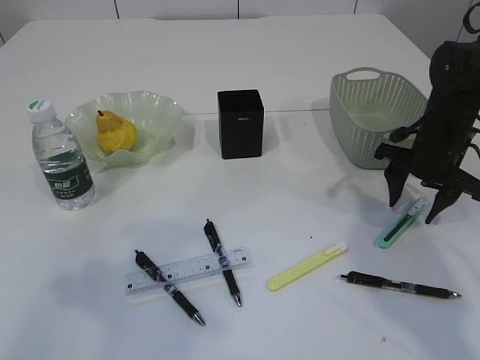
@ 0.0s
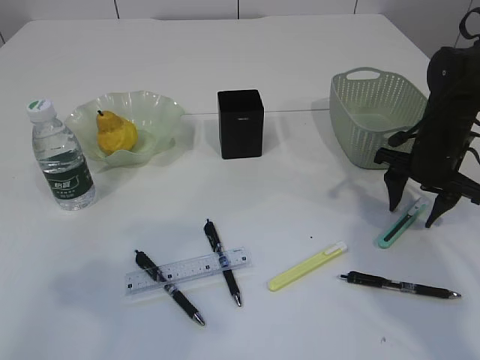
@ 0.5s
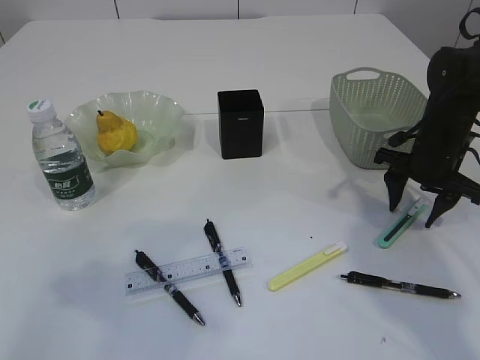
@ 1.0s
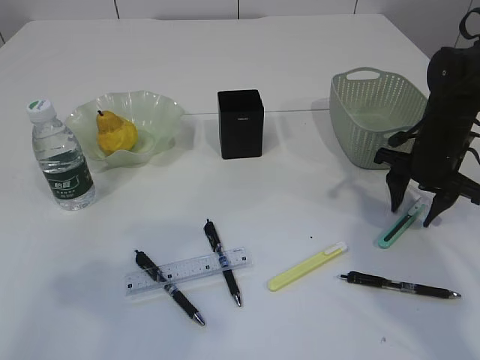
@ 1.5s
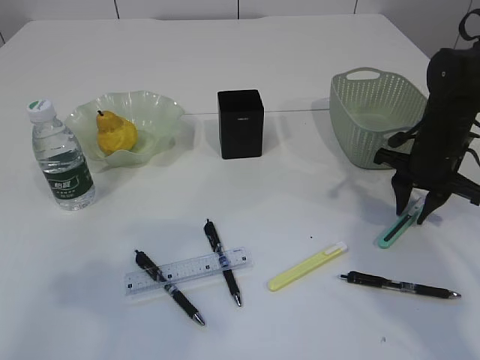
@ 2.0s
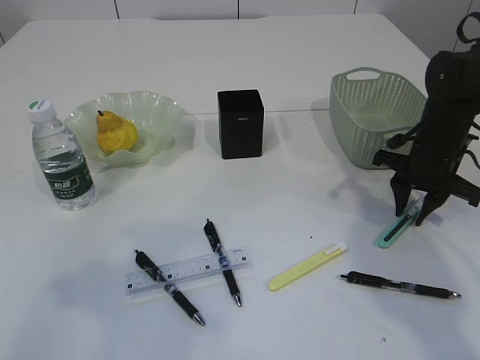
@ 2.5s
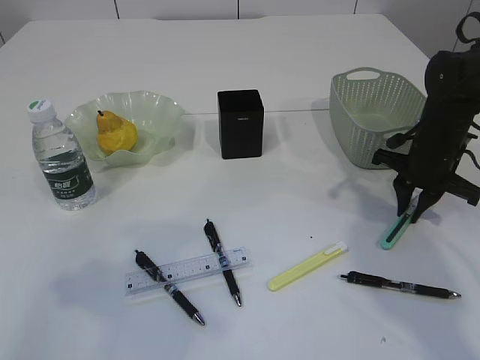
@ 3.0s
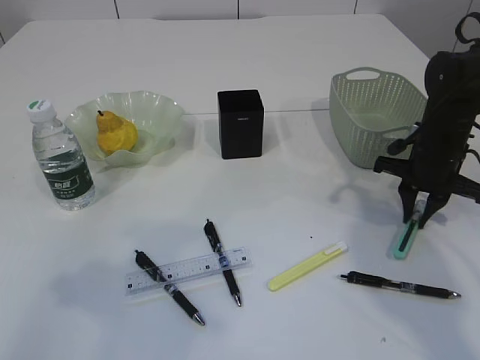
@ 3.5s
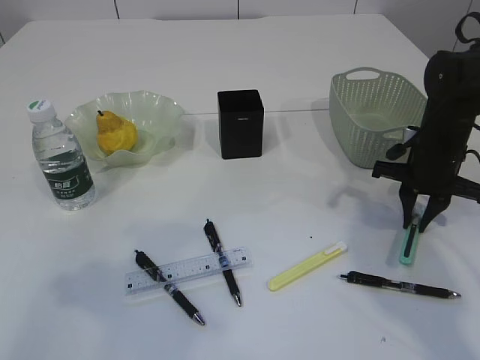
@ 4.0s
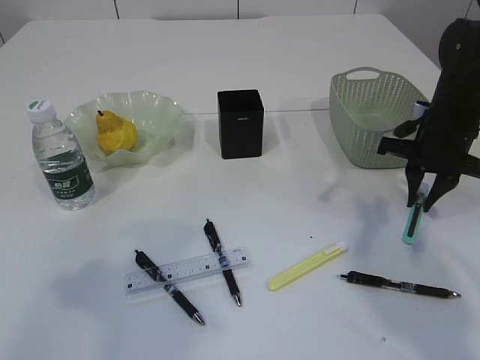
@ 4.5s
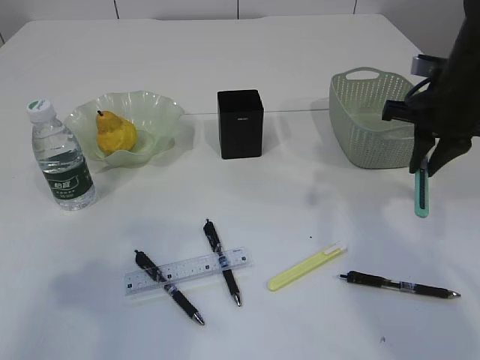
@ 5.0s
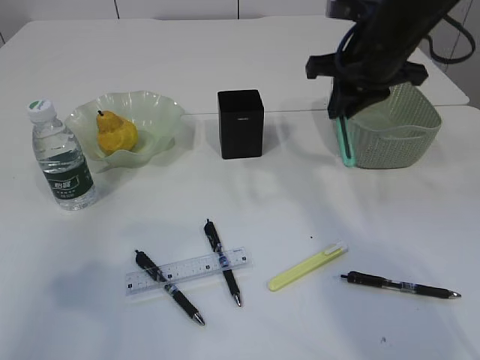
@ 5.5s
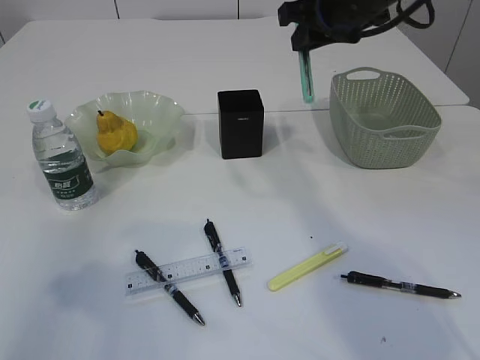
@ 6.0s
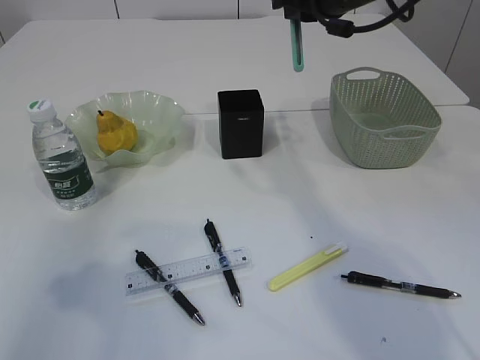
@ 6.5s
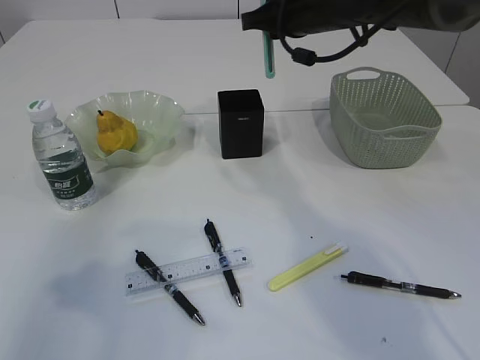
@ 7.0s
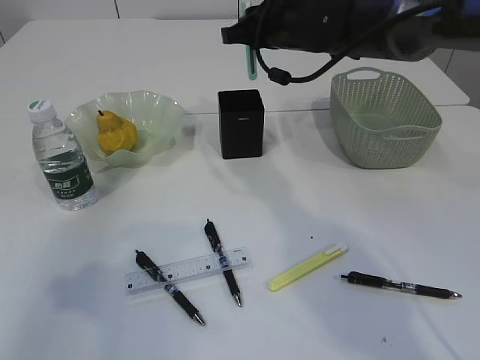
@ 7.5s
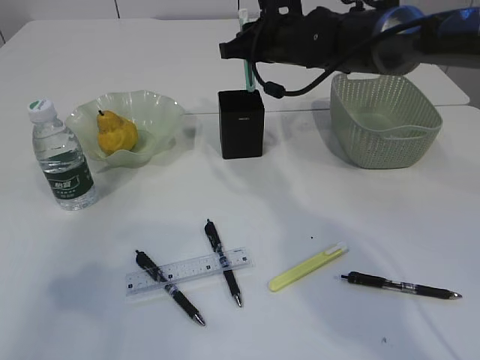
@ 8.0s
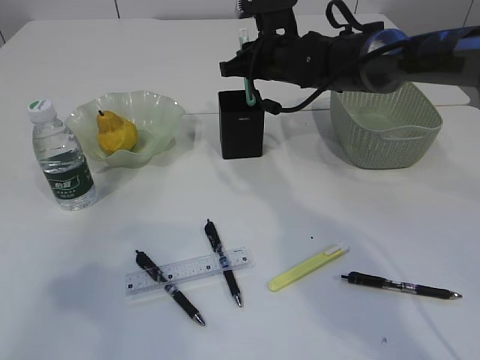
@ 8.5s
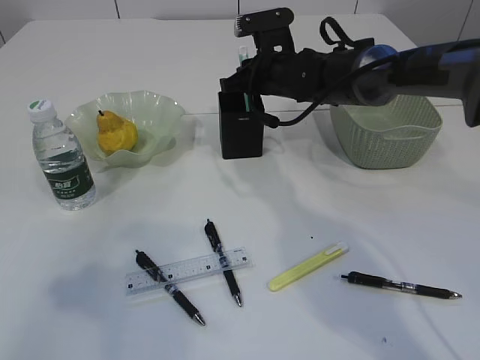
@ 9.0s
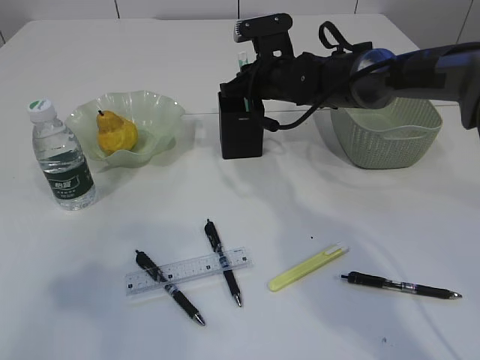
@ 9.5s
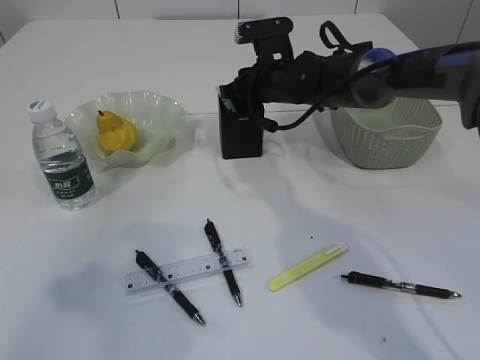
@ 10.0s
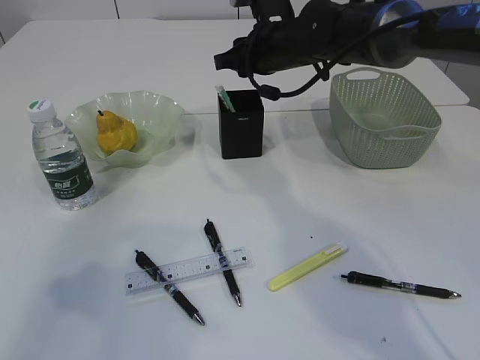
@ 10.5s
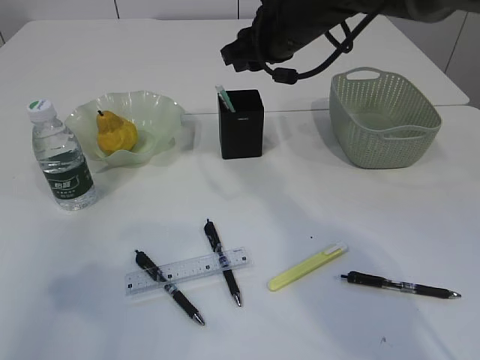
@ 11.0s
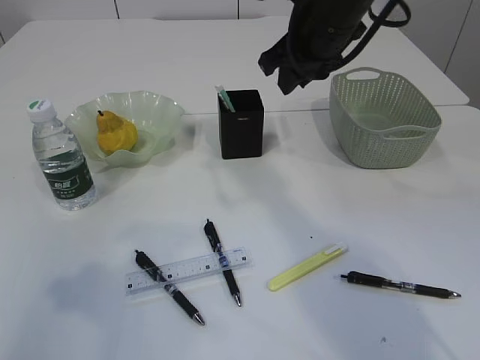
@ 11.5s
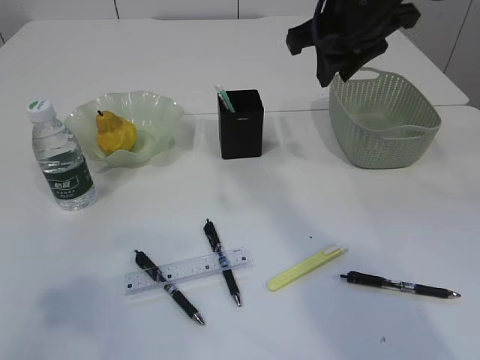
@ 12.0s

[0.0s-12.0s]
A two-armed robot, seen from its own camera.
Step, 0.0s to 4.0s: pick up the blue knife.
Step, 4.5s to 10.5s: Place the blue knife into the pen holder.
0.0s to 2.0s: The right gripper closes up.
2.0s to 4.0s: There are only small adjustments of the grippers.
4.0s to 6.0s: The right gripper travels upward and to the left by about 25 cm.
6.0s to 8.0s: The right gripper goes about 10 cm downward, to the left and forward.
8.0s to 10.0s: The right gripper travels downward by about 5 cm.
10.0s to 12.0s: The right gripper travels upward and backward by about 20 cm.

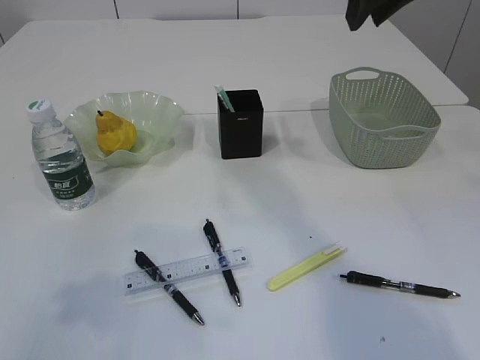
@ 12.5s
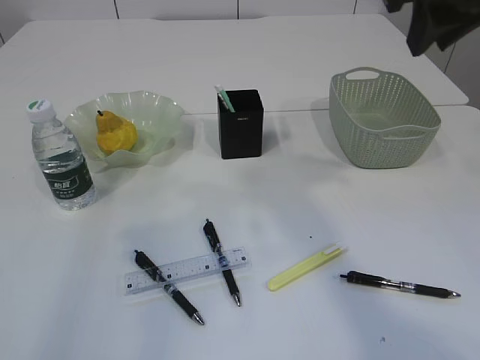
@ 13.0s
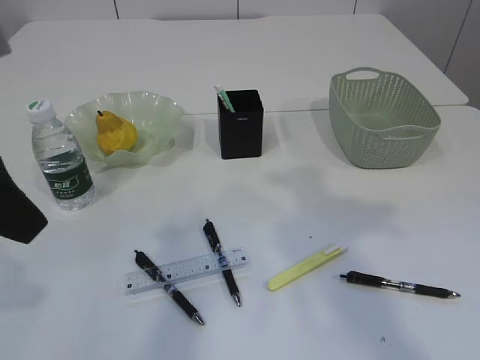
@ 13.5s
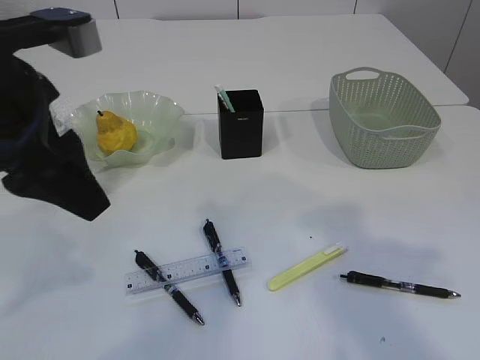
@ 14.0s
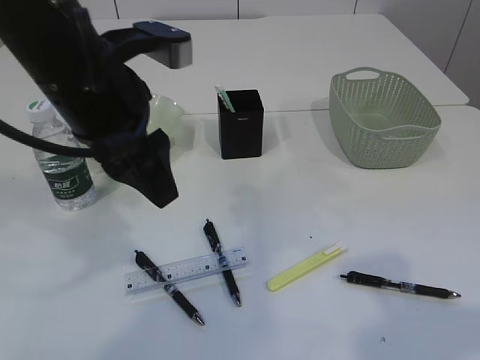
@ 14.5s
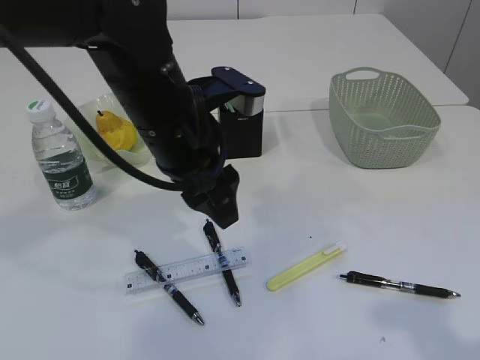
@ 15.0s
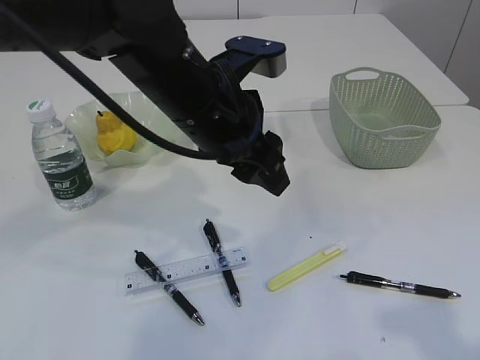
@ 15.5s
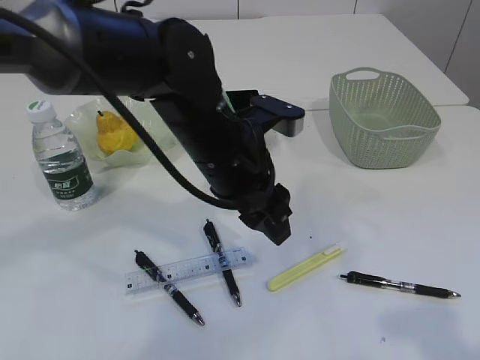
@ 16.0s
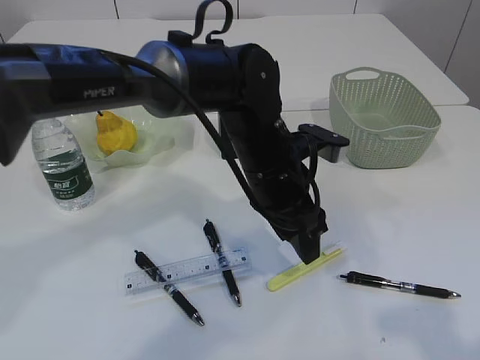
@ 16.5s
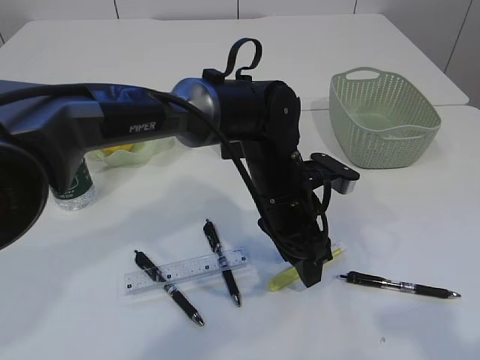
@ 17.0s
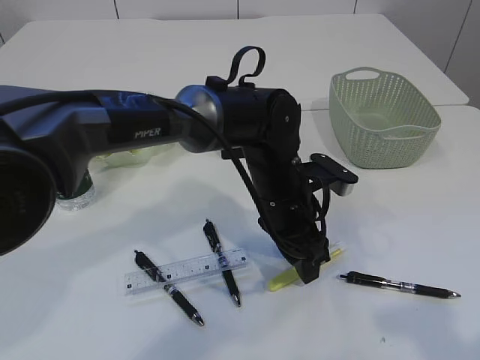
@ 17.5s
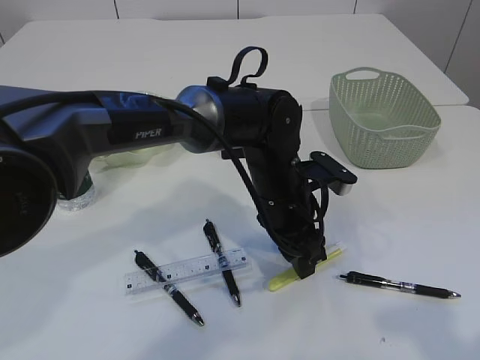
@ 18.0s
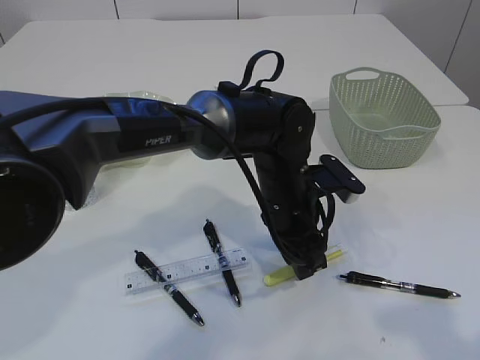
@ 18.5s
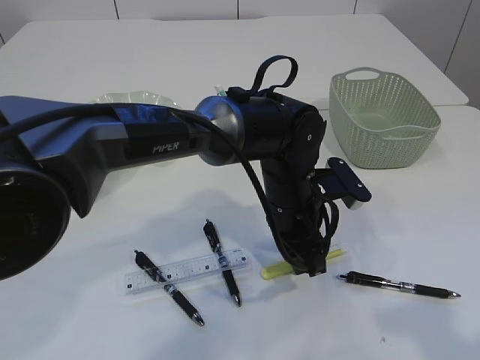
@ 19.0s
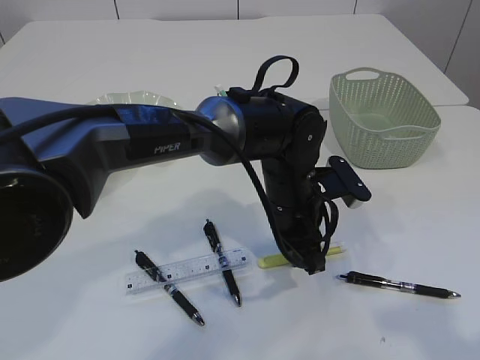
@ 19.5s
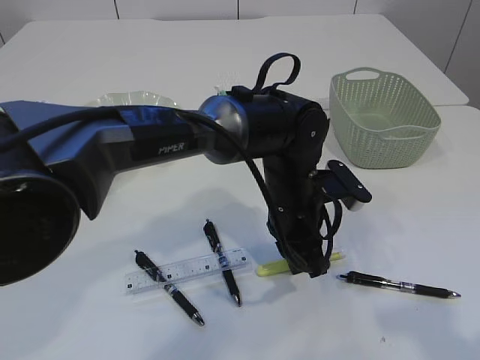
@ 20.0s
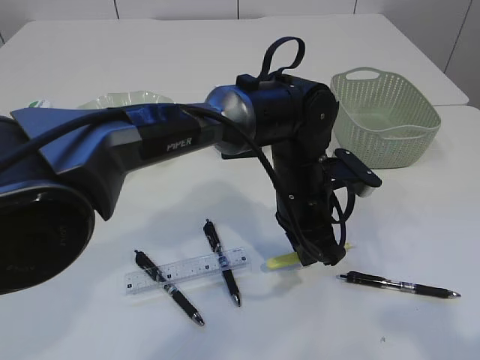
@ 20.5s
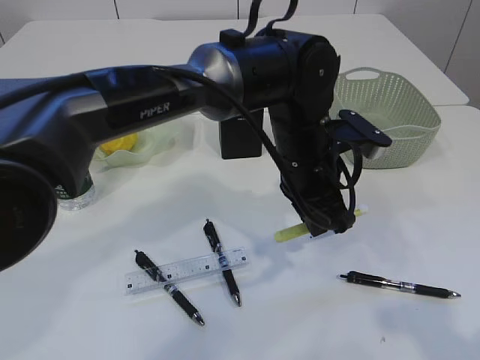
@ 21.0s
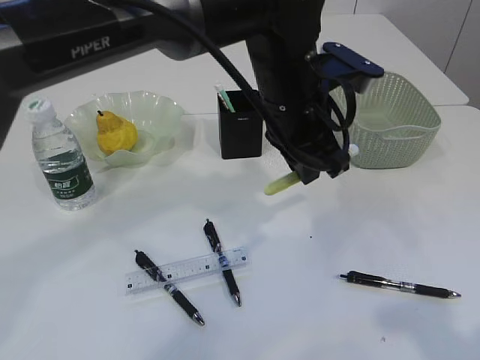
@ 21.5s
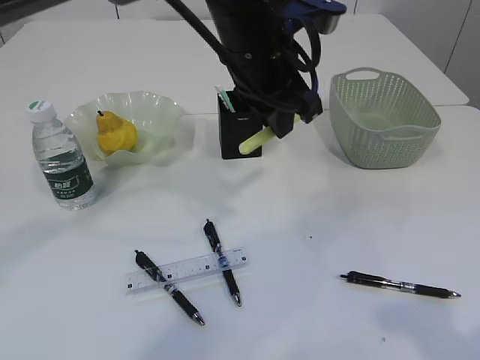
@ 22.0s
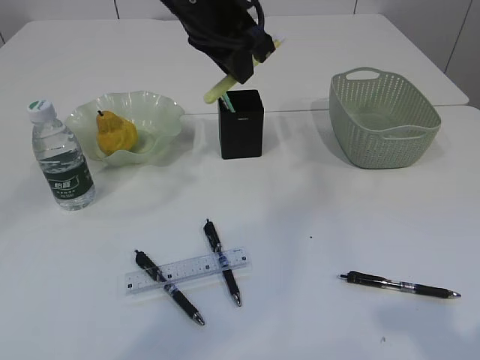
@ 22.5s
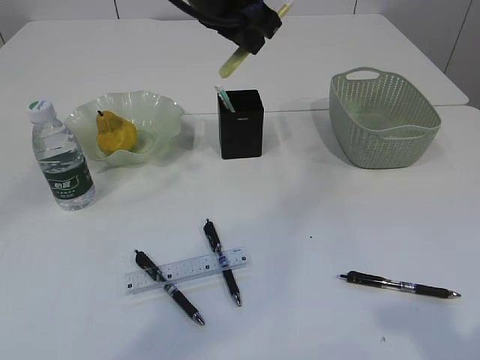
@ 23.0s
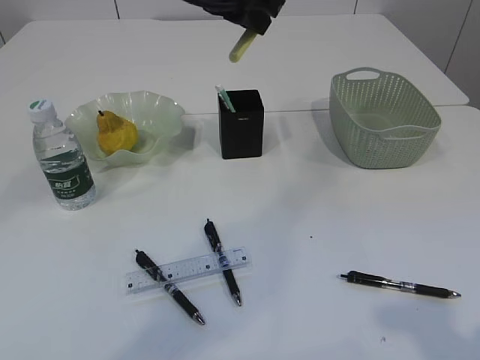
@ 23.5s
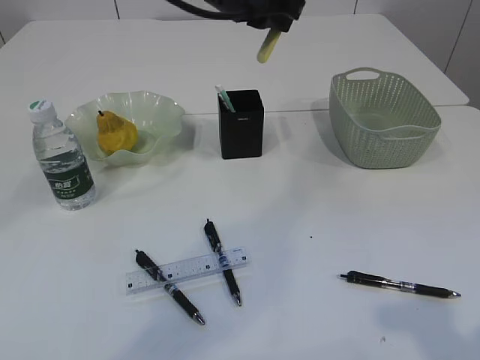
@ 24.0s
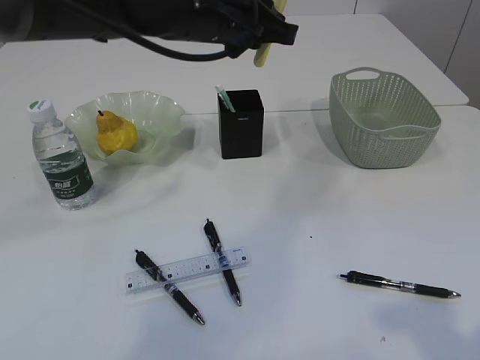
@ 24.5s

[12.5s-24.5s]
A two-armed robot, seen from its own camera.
Step, 12.5s to 20.5s: pick up the yellow knife.
12.5s to 14.5s: The right gripper moves backward and to the right, roughly 25 cm. Meanwhile the left gripper is displaced to the right and forward by roughly 20 cm.
14.5s to 16.5s: The left gripper is displaced to the right and downward by roughly 20 cm; the right gripper is displaced backward by some 5 cm.
16.5s to 18.5s: The left gripper goes roughly 5 cm downward.
18.5s to 20.5s: The left gripper closes up.
20.5s to 22.5s: The left gripper shifts approximately 25 cm upward and to the left.

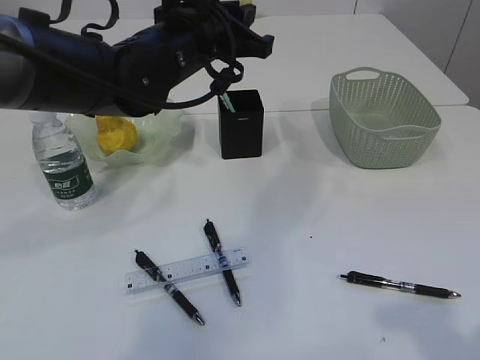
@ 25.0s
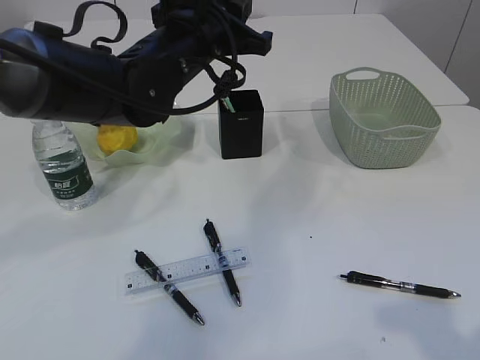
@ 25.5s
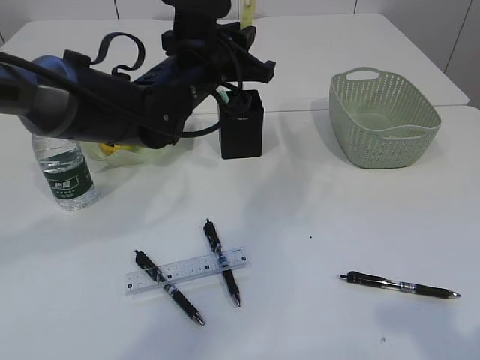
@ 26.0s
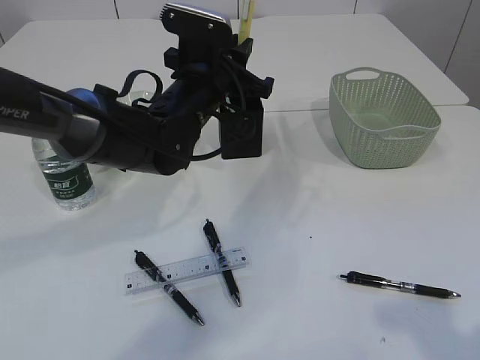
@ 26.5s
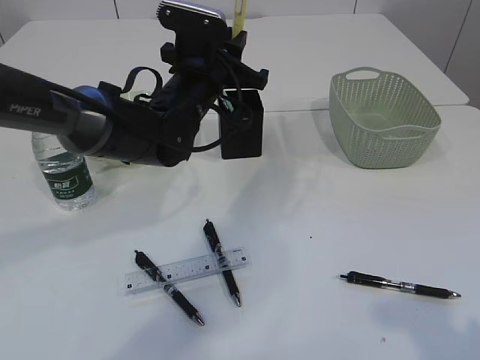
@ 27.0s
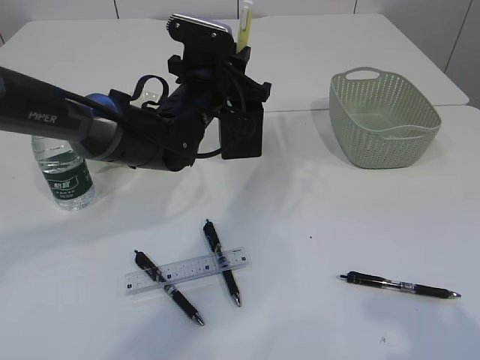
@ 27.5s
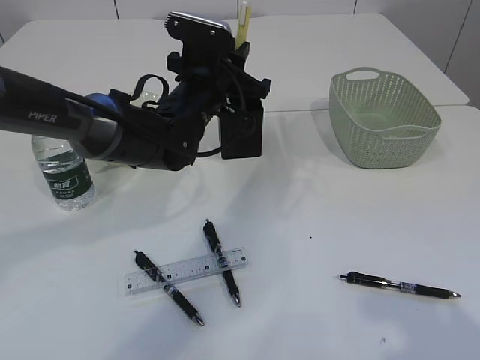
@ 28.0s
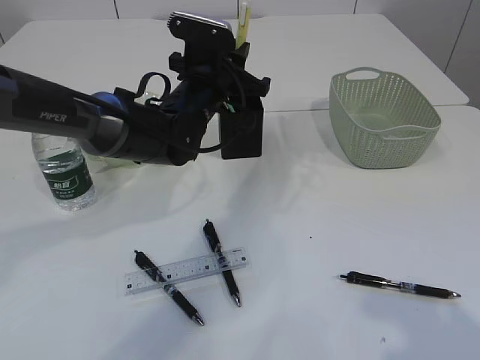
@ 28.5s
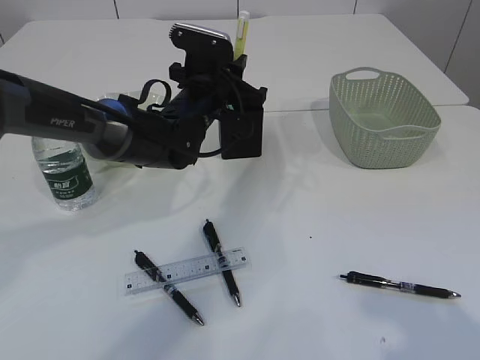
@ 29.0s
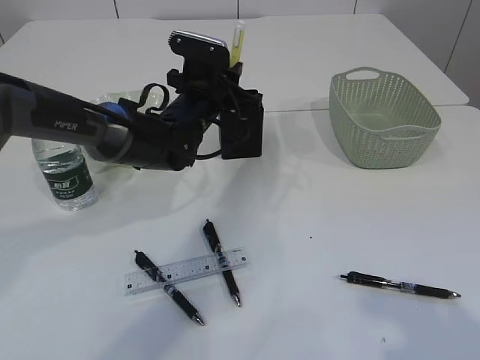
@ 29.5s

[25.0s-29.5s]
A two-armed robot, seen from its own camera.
25.0s to 27.0s: The left gripper is displaced downward by roughly 5 cm.
27.0s to 29.5s: The left gripper ends up approximately 5 cm from where it was.
